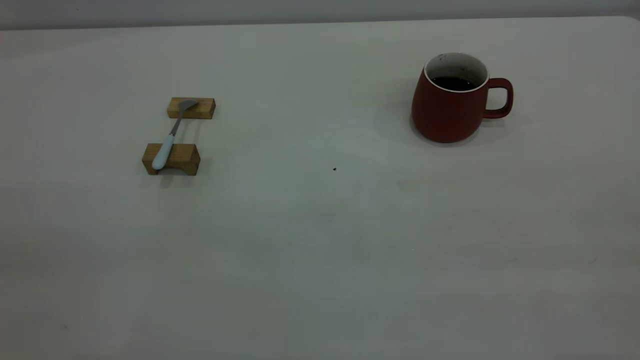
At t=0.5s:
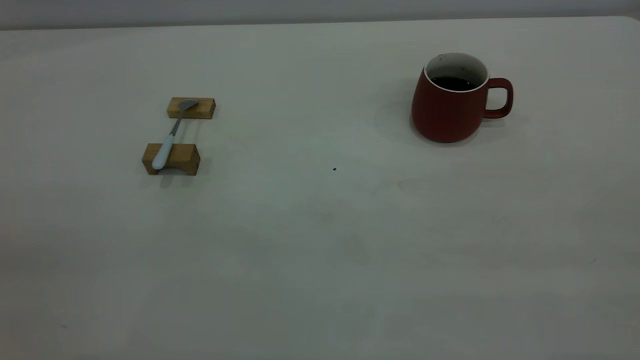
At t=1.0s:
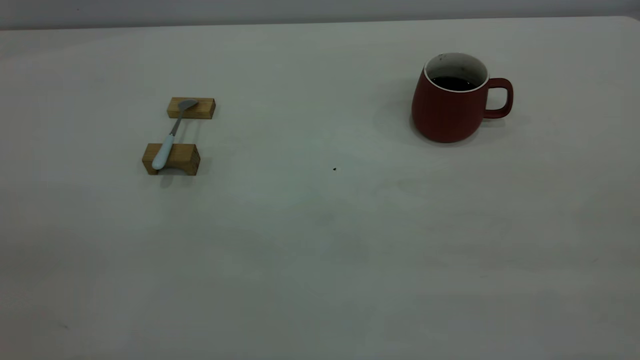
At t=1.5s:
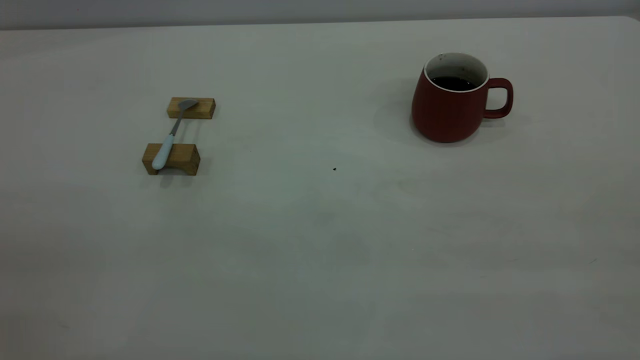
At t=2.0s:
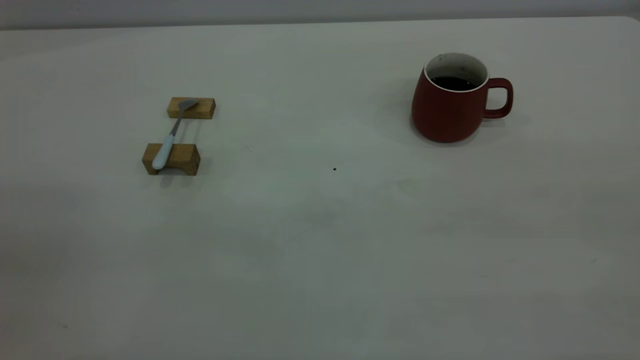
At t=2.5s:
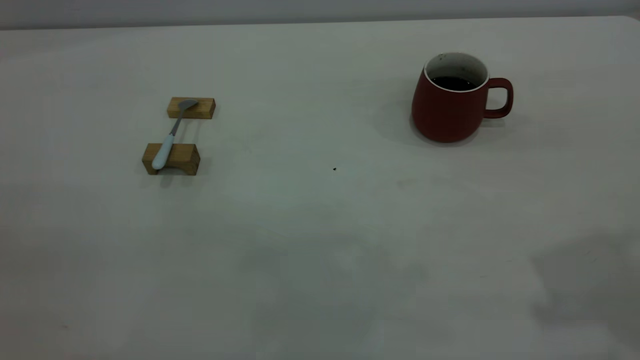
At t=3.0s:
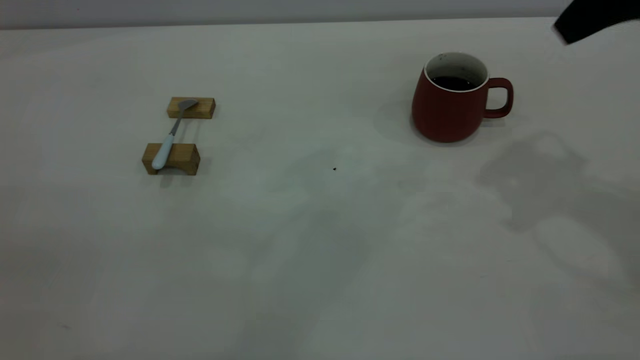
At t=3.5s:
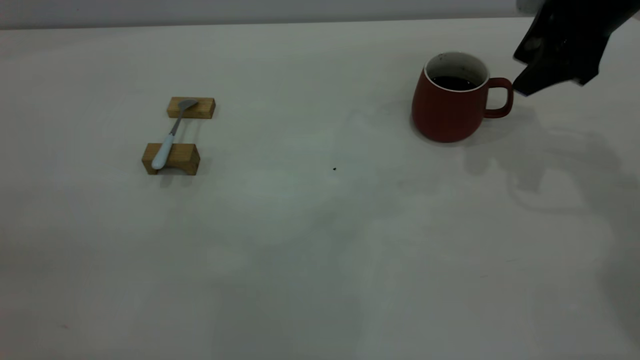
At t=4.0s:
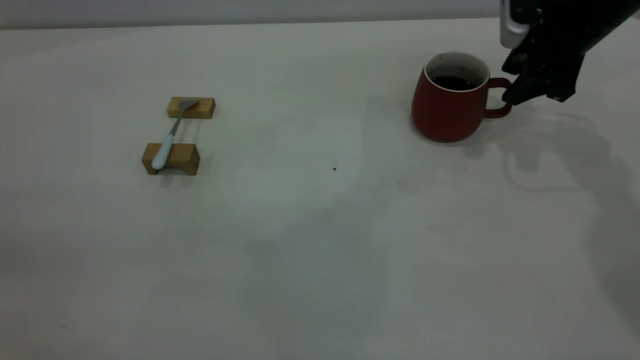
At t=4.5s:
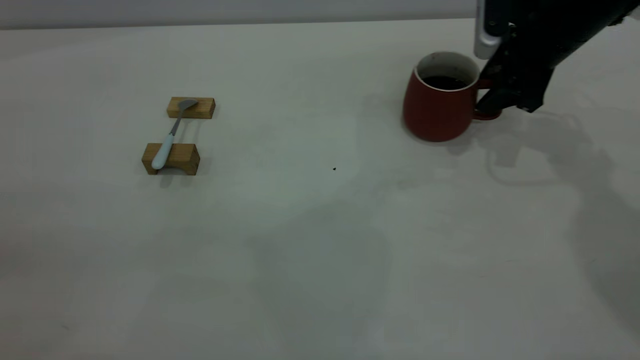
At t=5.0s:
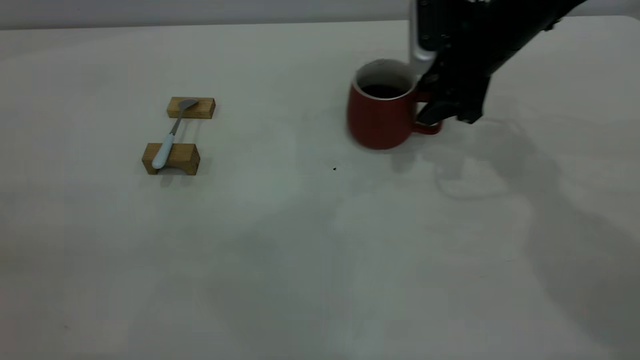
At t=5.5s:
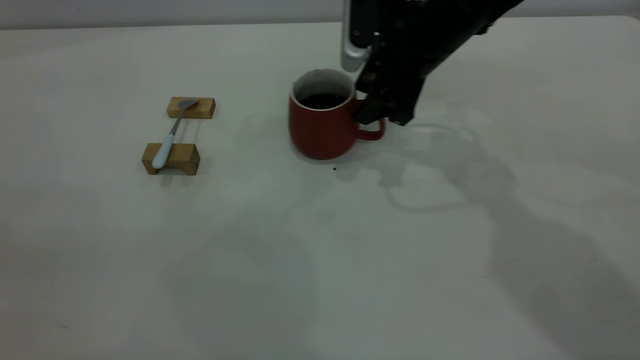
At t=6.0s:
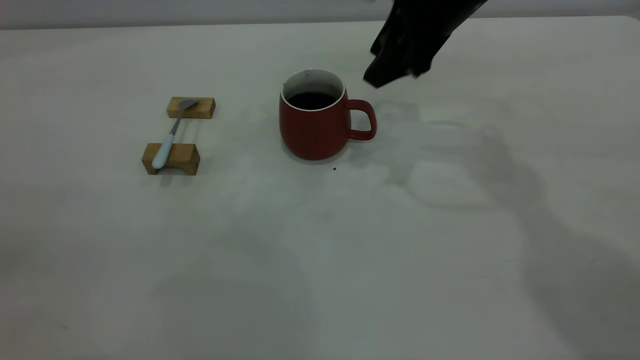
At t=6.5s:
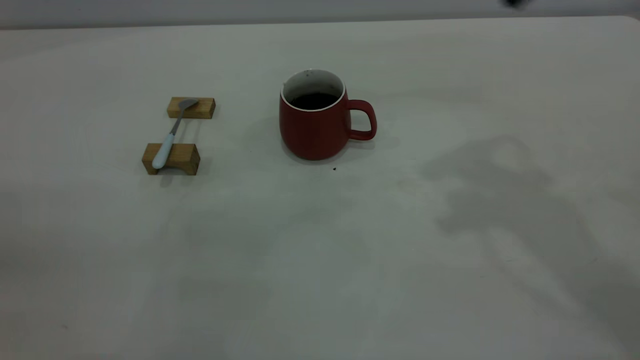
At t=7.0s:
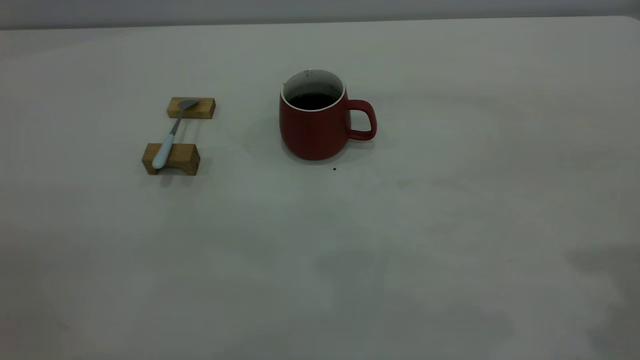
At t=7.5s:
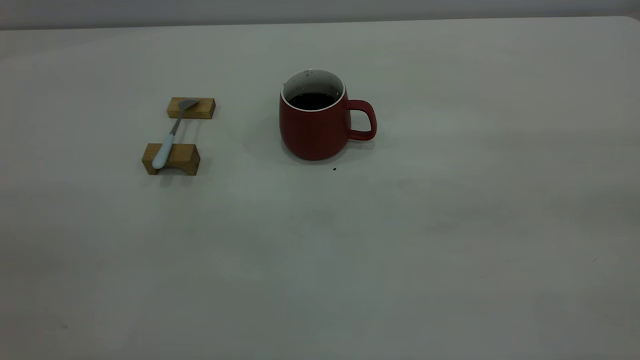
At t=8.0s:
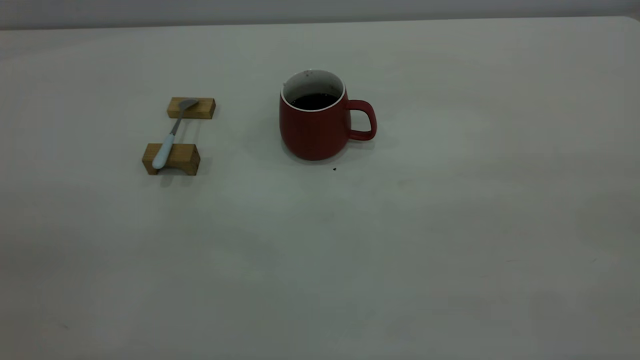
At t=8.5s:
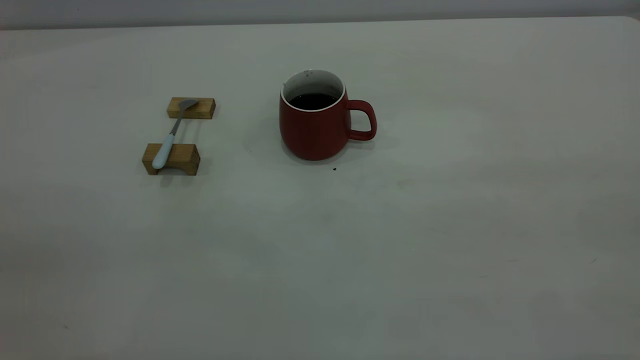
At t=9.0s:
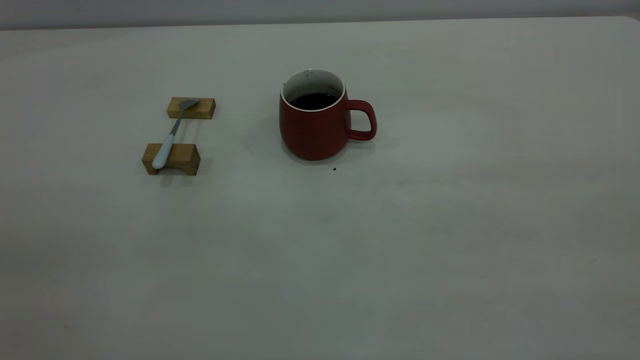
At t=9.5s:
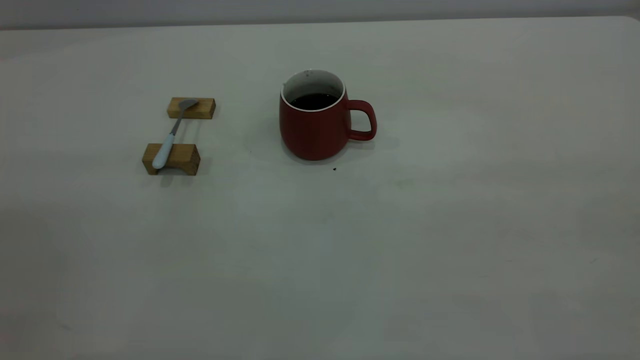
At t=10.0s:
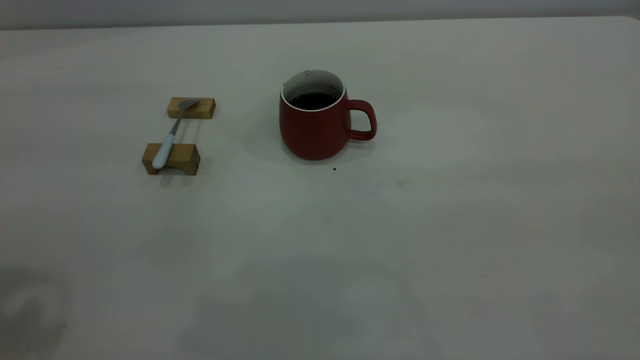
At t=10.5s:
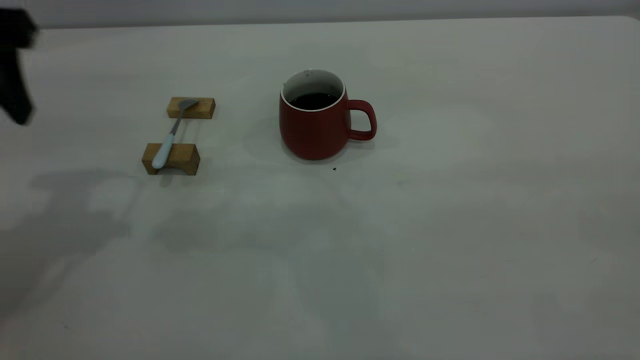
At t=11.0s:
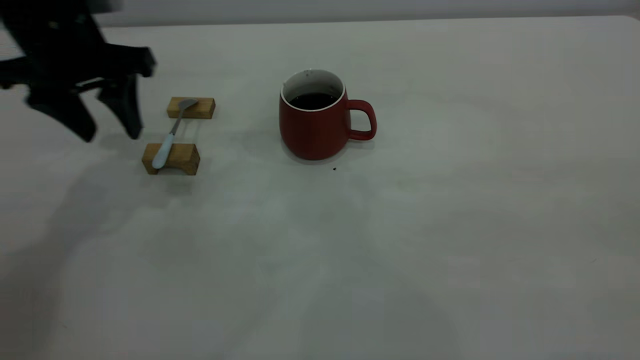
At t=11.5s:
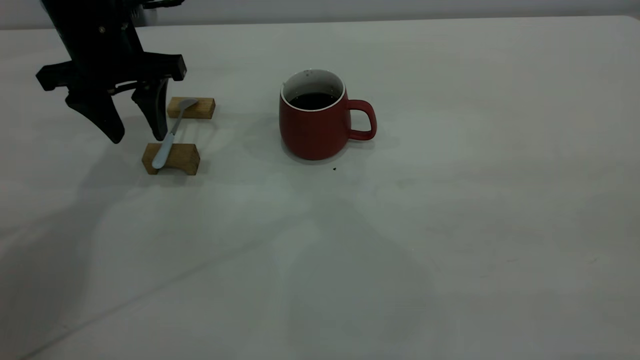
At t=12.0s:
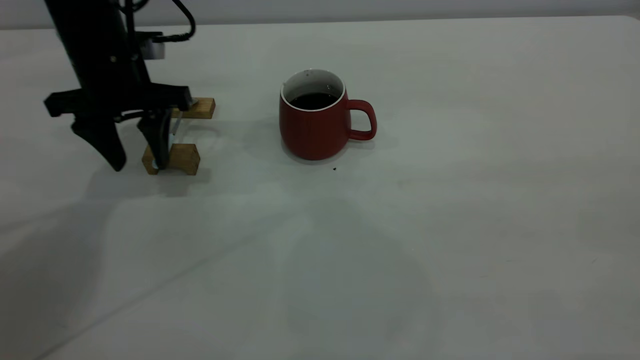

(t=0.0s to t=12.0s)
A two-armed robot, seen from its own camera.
Step, t=0.0s - t=6.0s: Move the cup with coffee to the center of view.
t=2.0s - t=4.0s: The right gripper shifts roughly 50 cm forward and downward.
t=4.0s - t=6.0s: The right gripper heads to the left and upward, covering approximately 15 cm.
t=6.0s - t=8.0s: The right gripper heads backward and to the right, covering roughly 50 cm.
t=10.0s - t=12.0s: The left gripper goes about 35 cm downward and forward.

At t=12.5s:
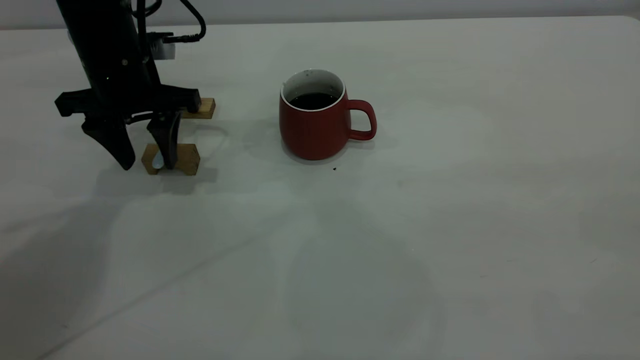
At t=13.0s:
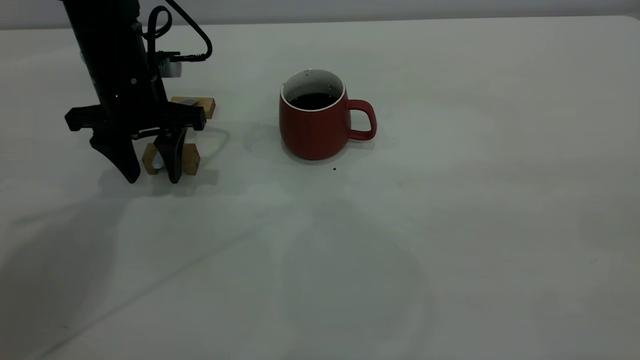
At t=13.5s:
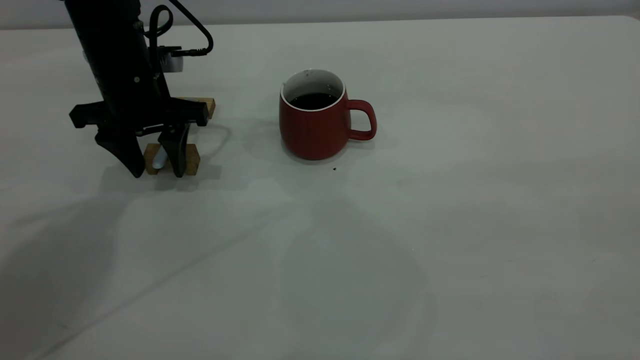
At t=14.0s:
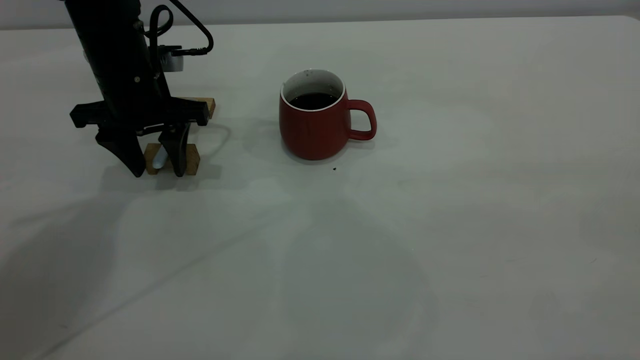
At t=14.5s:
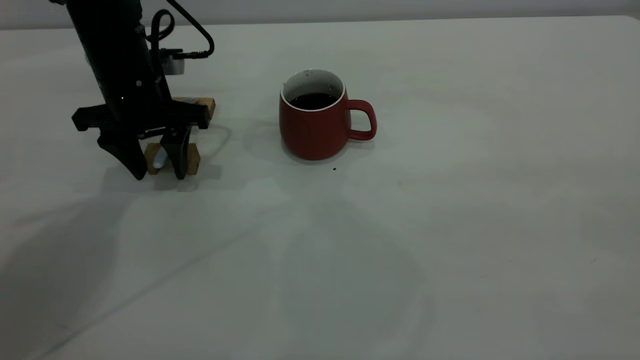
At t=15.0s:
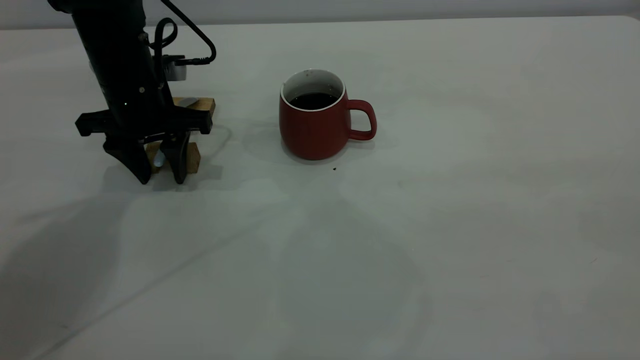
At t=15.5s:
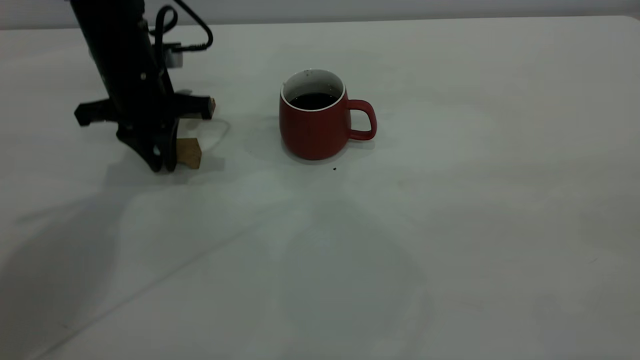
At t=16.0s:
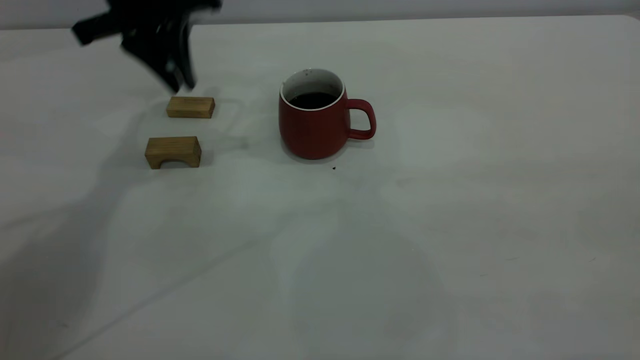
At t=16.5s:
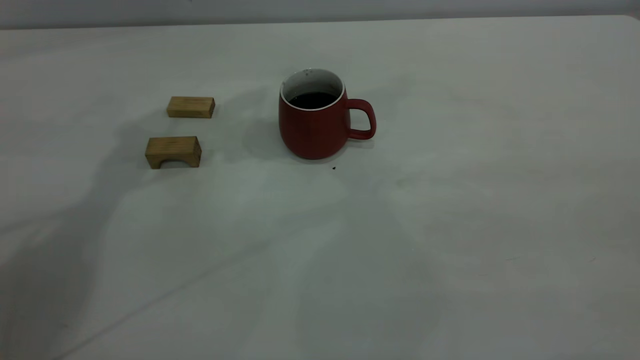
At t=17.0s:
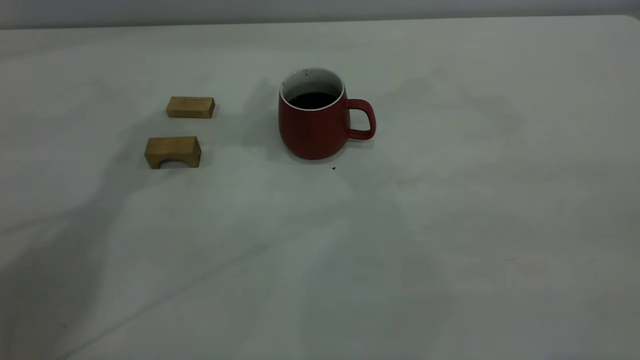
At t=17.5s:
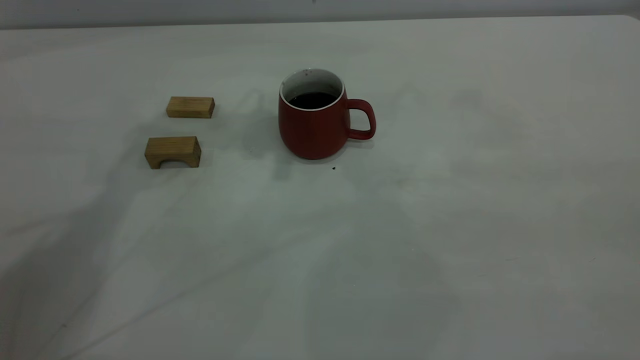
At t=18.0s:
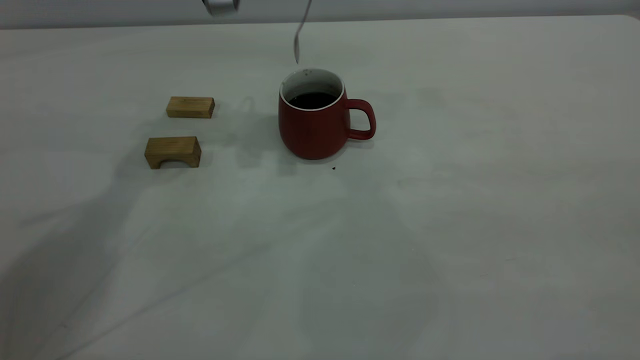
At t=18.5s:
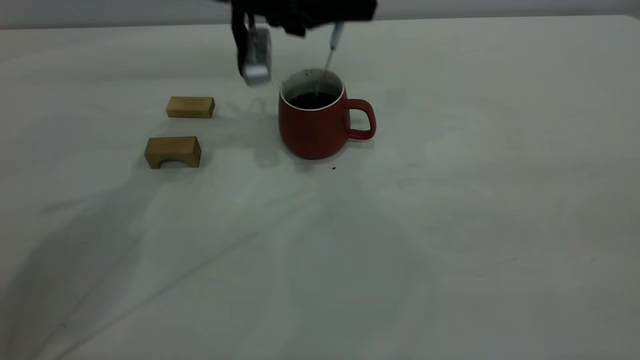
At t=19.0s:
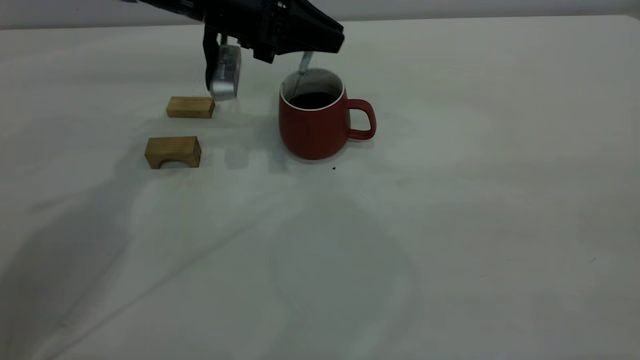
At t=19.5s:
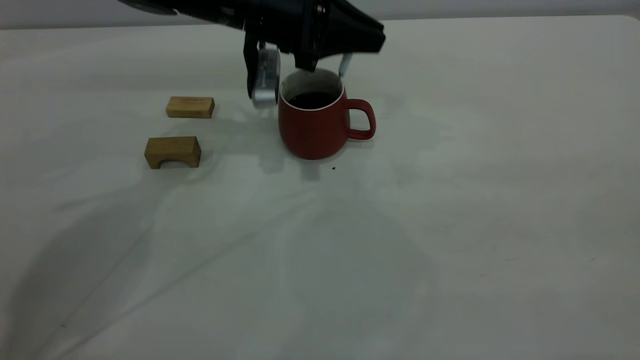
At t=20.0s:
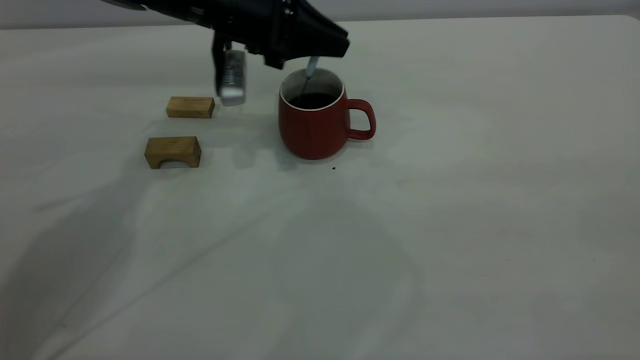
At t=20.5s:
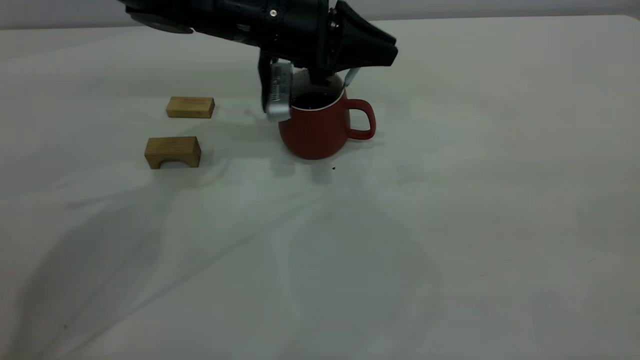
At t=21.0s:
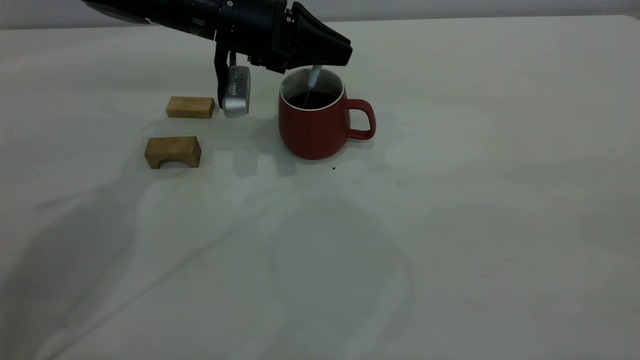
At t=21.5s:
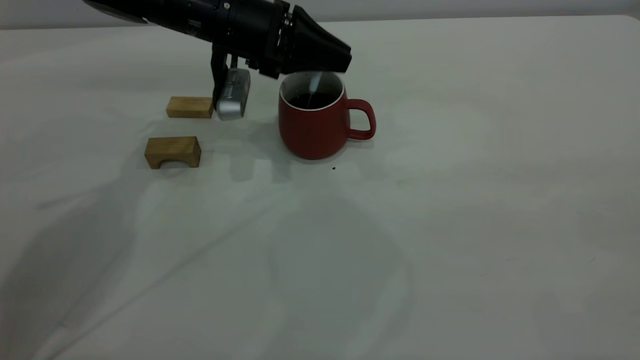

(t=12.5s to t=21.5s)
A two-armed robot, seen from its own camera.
Step, t=12.5s - t=15.5s: Pick up the spoon.
t=12.5s - t=14.5s: The grippers move only a little.
t=14.5s - t=17.0s: The left gripper goes approximately 20 cm upward and to the right, and closes.
t=17.0s - t=19.5s: The left gripper travels downward by approximately 15 cm.
t=19.5s - t=21.5s: The grippers make only small movements.
